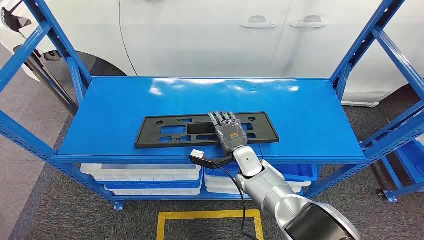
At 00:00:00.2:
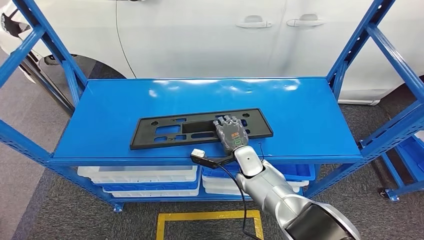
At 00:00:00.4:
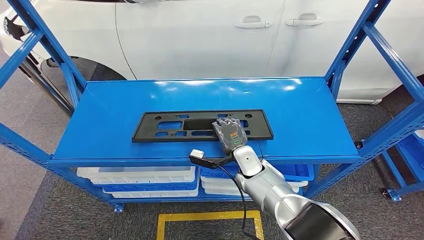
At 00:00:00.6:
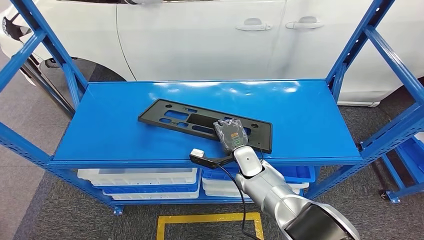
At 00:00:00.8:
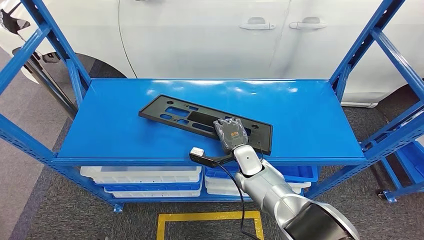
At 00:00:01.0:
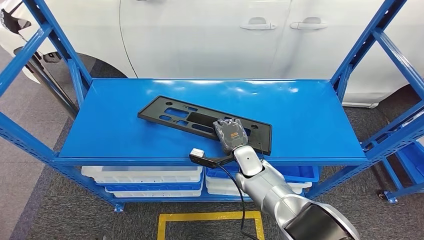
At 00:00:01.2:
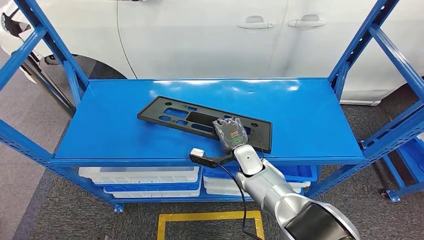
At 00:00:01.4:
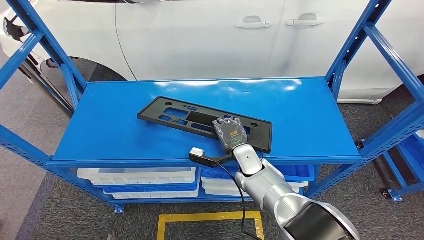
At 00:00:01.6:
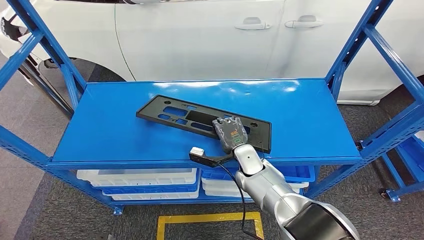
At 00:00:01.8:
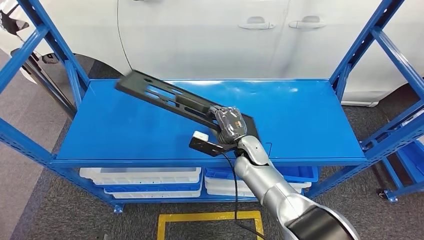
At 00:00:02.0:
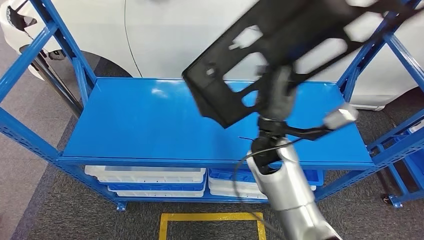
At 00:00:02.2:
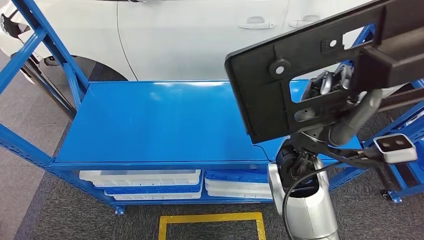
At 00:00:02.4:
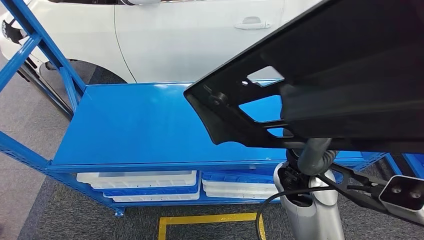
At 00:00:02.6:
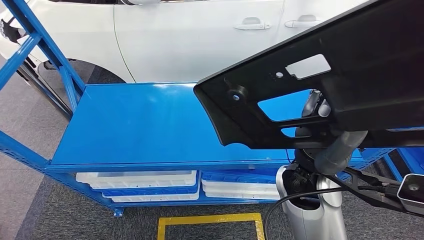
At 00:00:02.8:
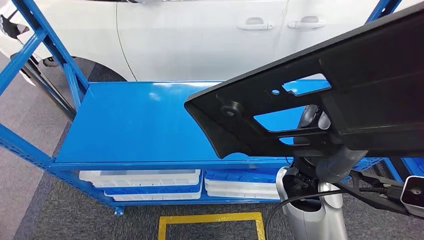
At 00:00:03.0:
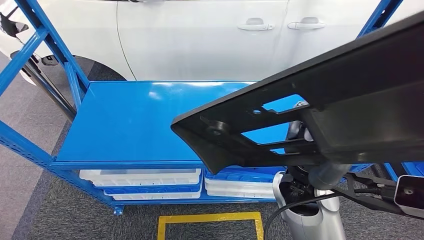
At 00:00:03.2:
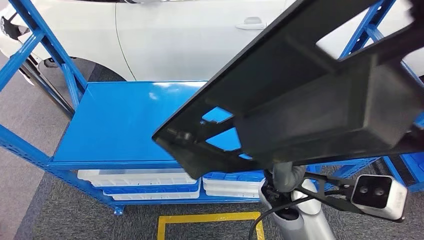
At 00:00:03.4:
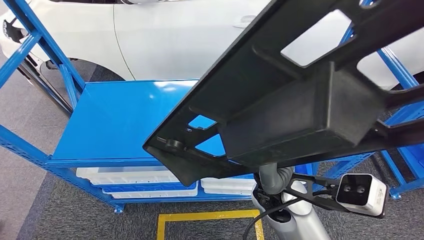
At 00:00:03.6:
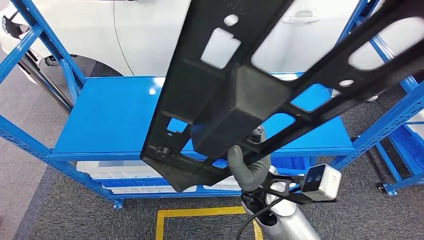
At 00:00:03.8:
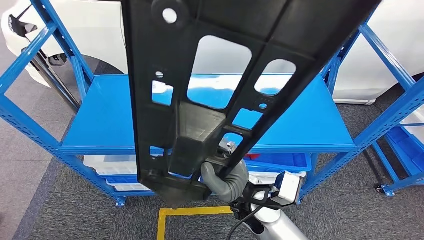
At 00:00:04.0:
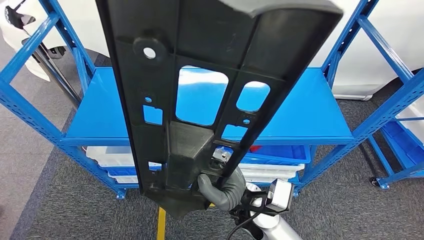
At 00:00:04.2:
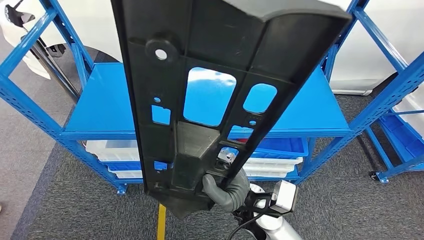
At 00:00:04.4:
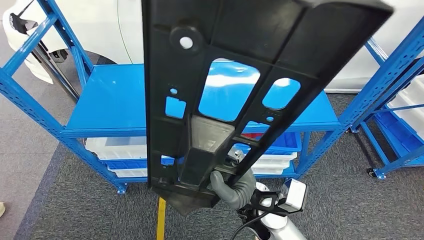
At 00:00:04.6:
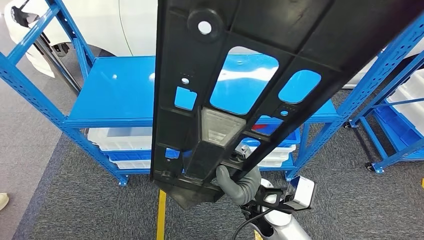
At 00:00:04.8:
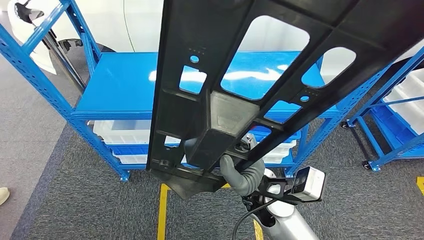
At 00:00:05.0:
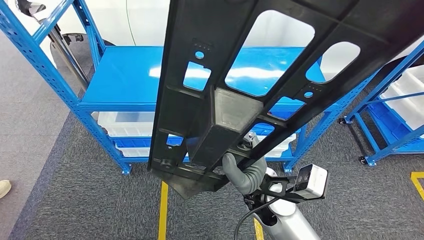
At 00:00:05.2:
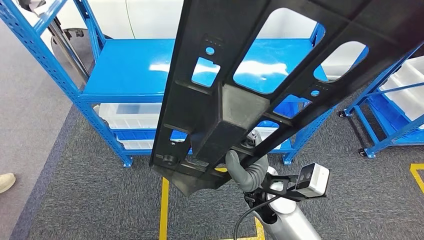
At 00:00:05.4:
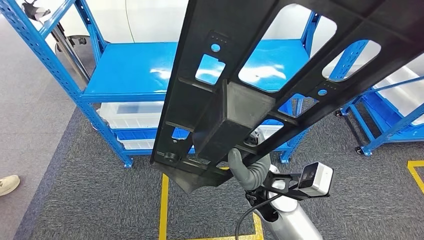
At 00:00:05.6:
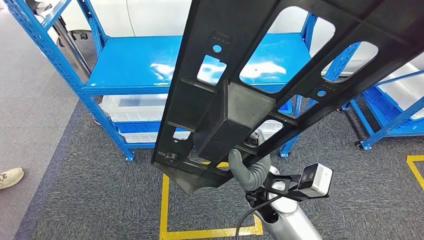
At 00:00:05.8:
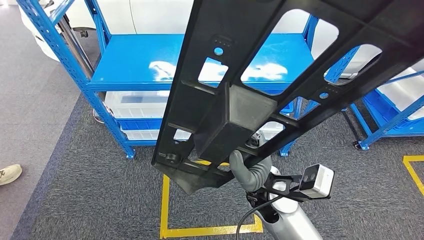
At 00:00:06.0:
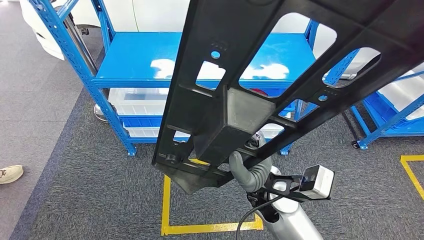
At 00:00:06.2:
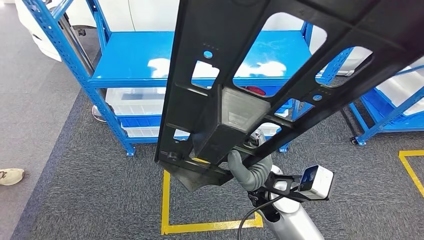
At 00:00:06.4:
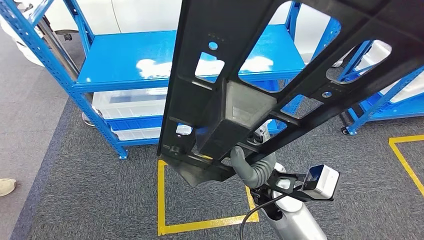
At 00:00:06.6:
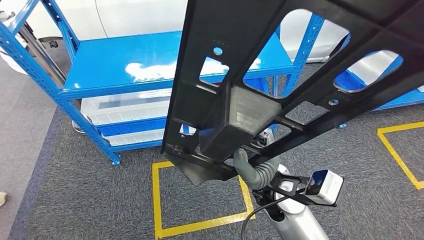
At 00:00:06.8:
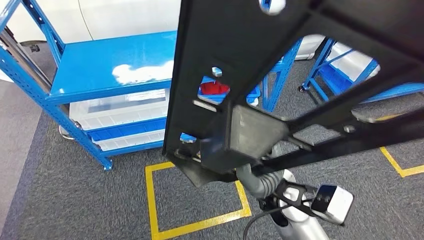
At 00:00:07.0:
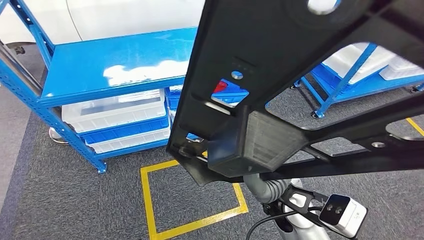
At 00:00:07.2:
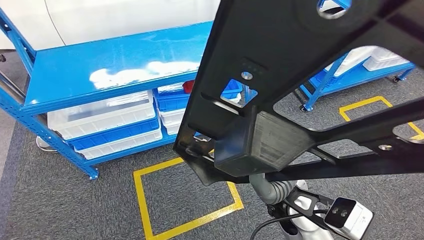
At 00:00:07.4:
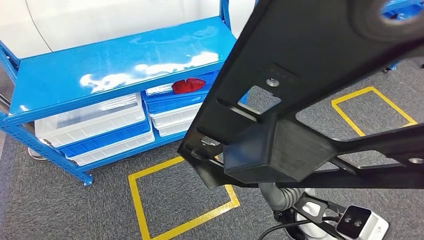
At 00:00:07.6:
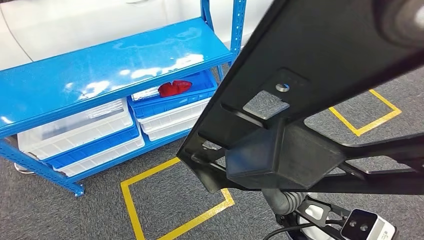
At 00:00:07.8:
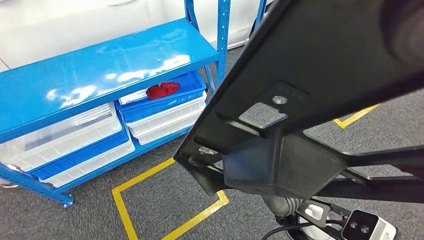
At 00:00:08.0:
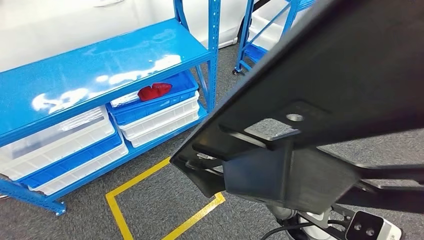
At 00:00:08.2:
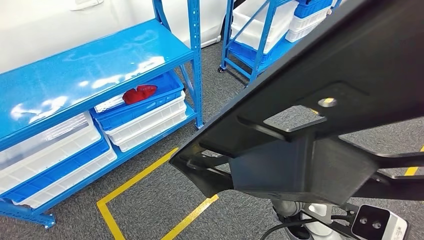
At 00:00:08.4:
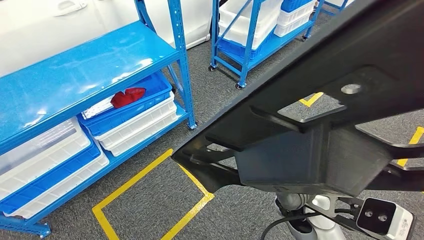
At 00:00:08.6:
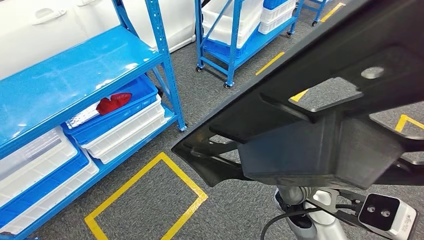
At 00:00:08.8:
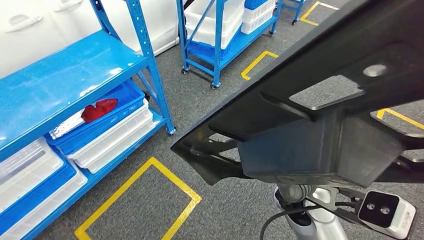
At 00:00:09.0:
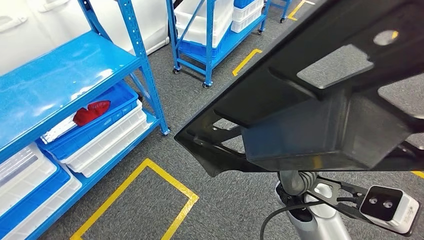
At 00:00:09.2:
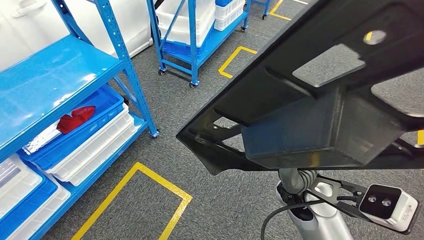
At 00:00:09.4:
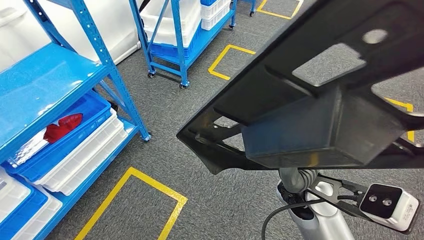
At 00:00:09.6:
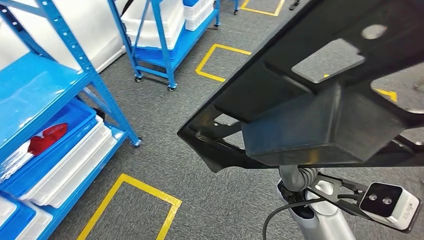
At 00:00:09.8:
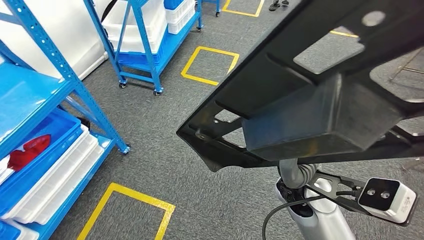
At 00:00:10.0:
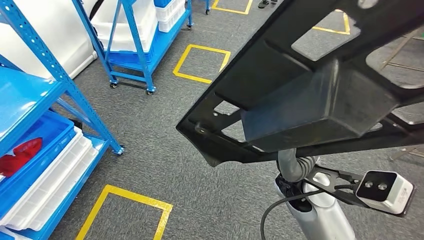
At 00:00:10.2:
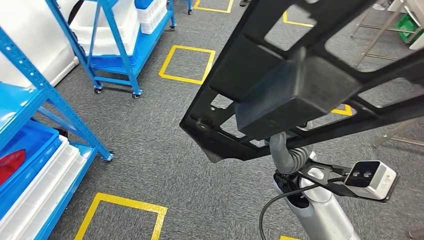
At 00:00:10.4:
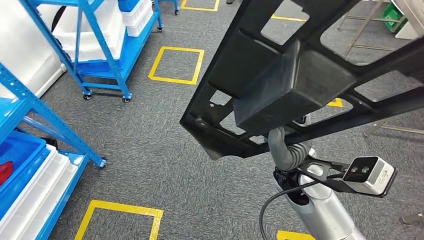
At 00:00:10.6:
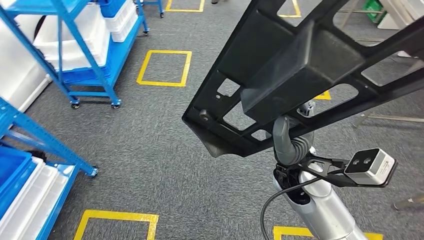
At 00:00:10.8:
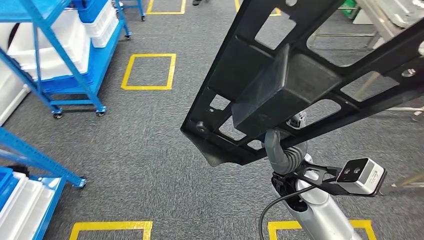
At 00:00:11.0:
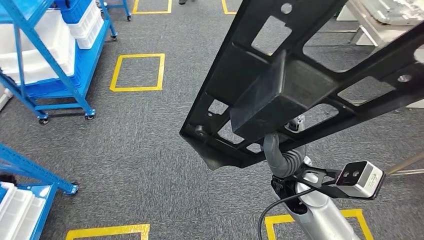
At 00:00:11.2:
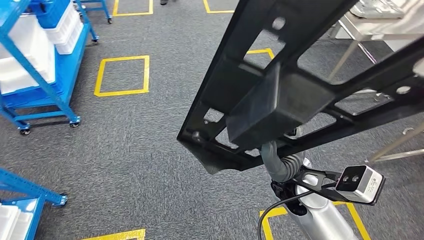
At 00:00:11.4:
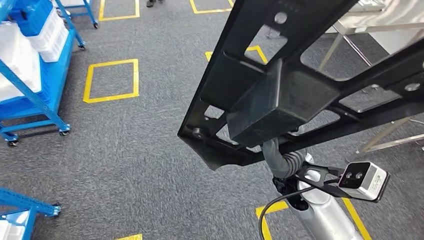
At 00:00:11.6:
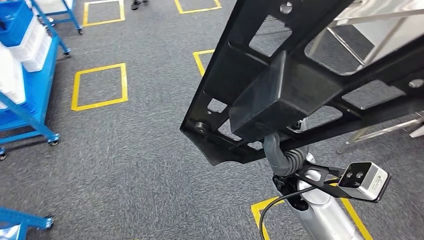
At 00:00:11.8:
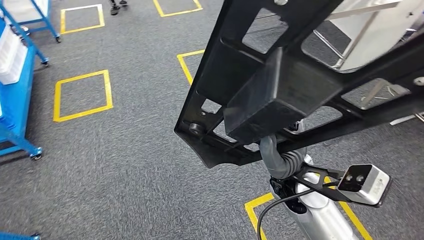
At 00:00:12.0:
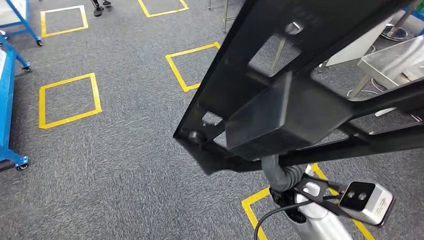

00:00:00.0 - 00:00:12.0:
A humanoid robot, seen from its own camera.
Step, 00:00:00.0 - 00:00:02.2: Pick up the large parts from the shelf.

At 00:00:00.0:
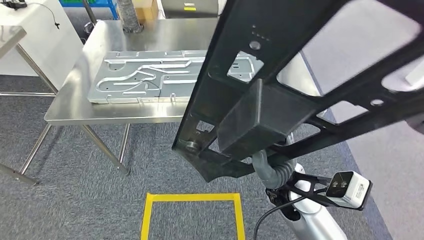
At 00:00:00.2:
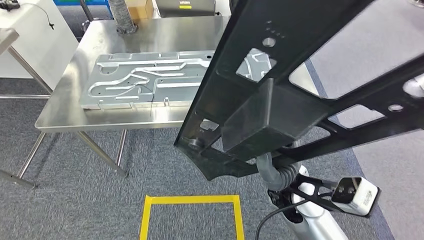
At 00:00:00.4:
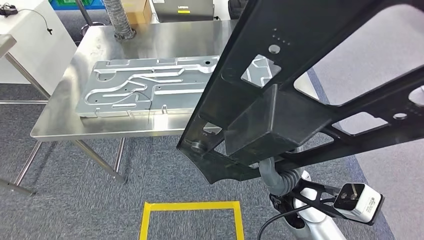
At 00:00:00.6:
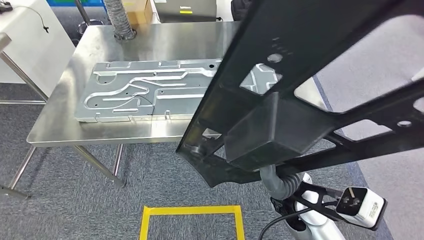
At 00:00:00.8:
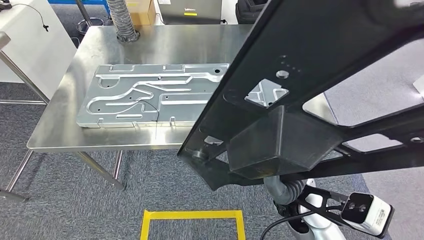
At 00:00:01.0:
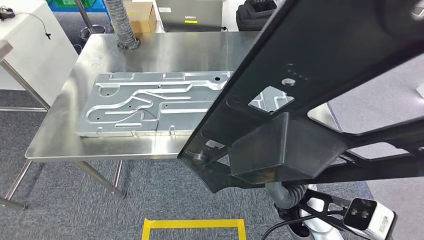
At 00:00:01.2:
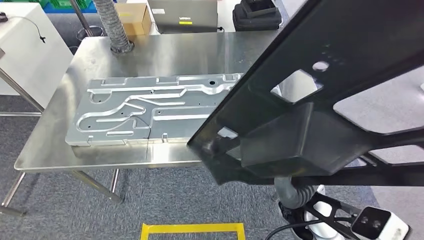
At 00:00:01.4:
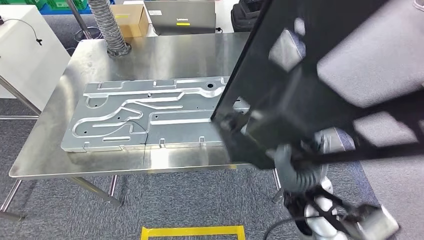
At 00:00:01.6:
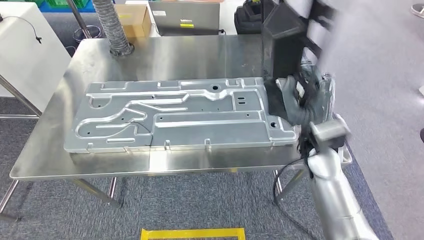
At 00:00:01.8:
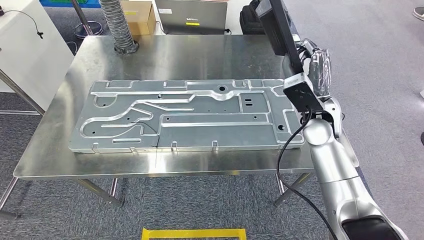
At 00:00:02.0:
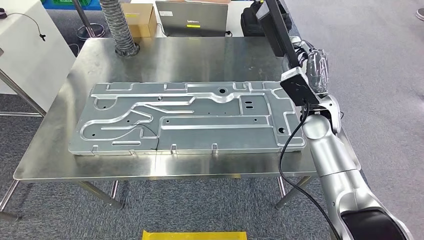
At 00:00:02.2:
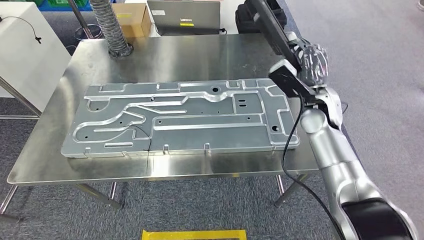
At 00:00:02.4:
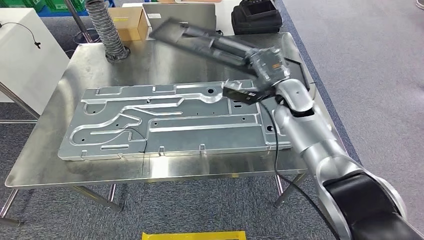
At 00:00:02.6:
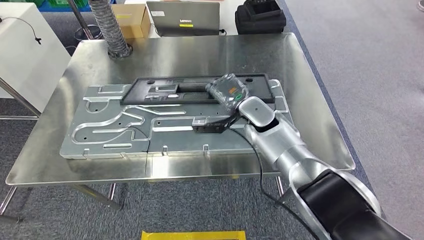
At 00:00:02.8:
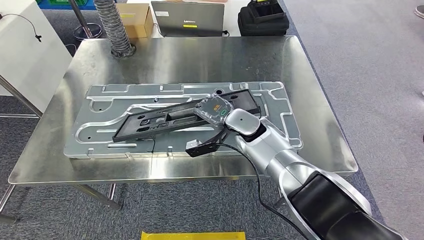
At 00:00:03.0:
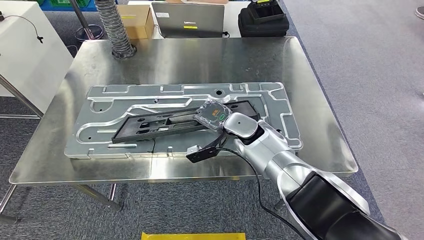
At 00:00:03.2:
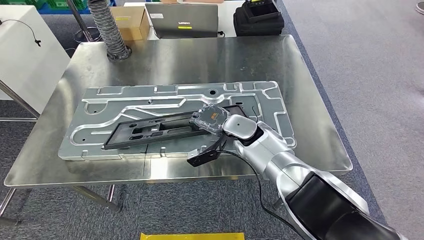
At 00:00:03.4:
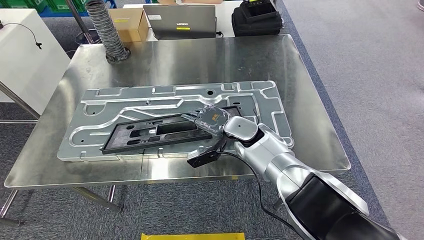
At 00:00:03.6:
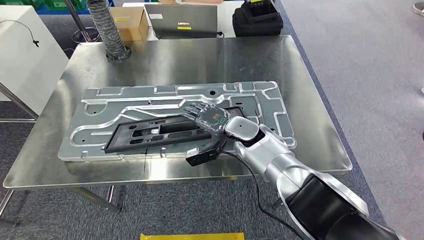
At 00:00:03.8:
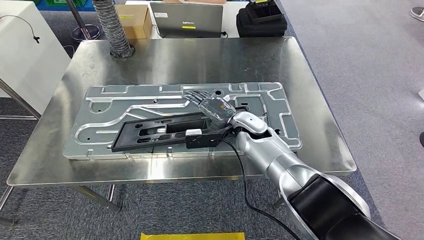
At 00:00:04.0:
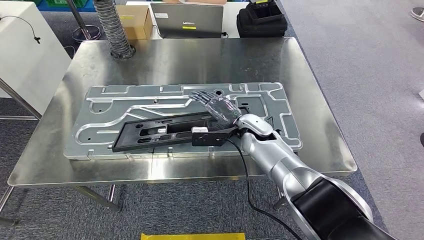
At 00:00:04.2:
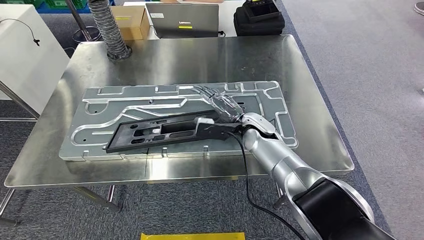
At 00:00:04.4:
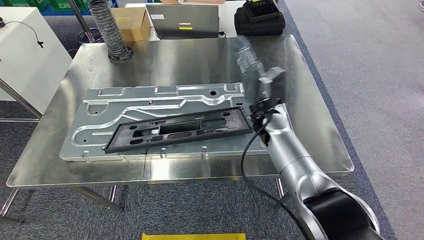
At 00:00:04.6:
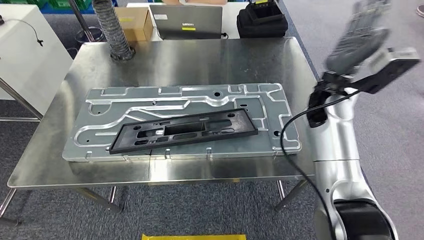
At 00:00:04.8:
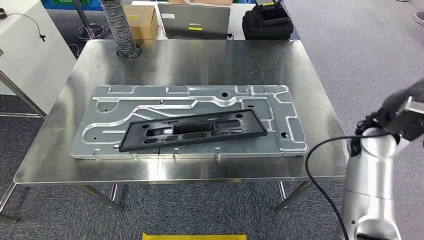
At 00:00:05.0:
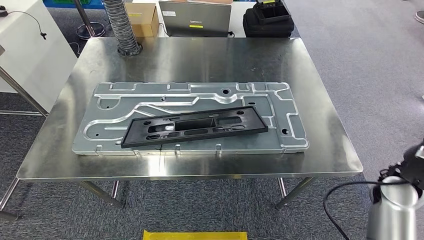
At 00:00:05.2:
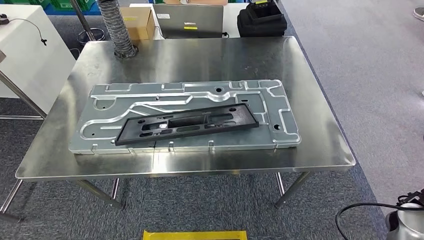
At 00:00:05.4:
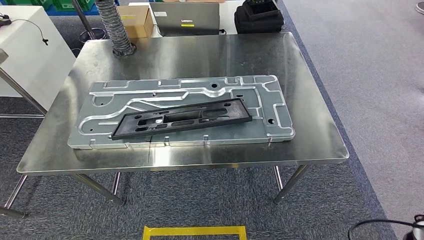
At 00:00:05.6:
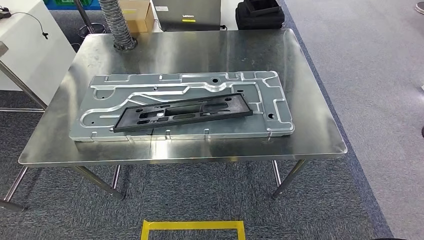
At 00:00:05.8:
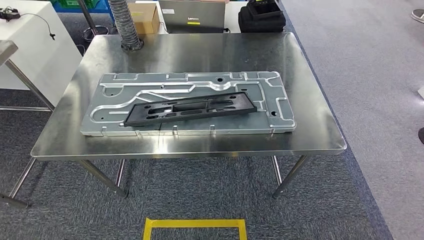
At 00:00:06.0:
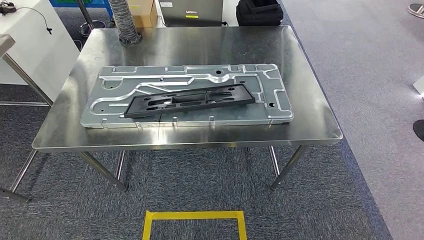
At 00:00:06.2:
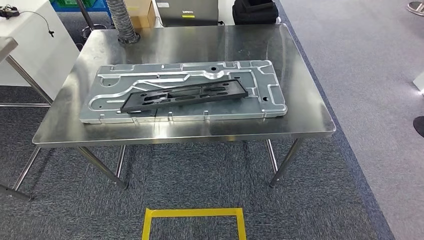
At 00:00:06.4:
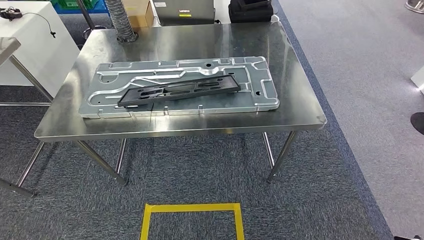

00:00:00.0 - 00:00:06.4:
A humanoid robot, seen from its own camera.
Step, 00:00:00.0 - 00:00:03.0: Move the large parts to the workbench.
Step, 00:00:03.2 - 00:00:05.6: Insert the large parts into the corresponding slots on the workbench.
